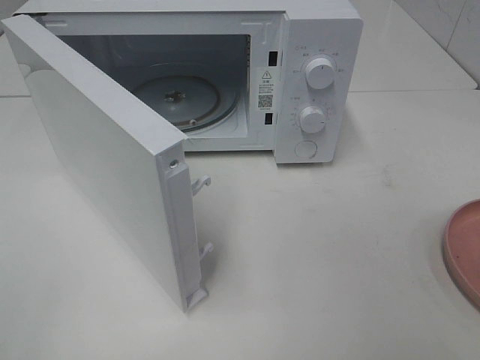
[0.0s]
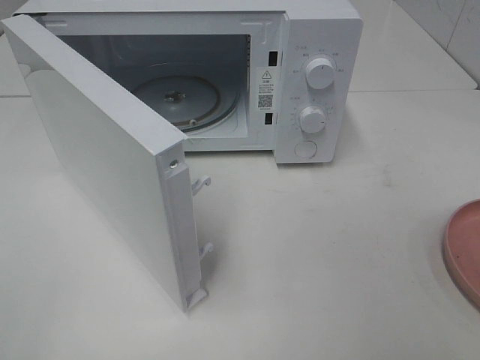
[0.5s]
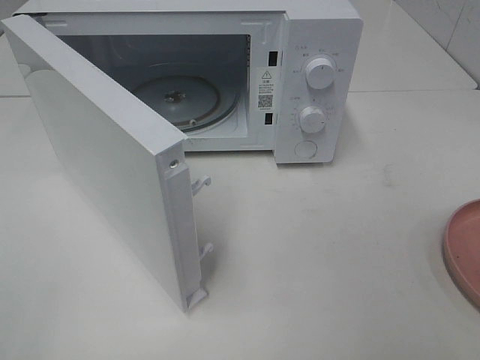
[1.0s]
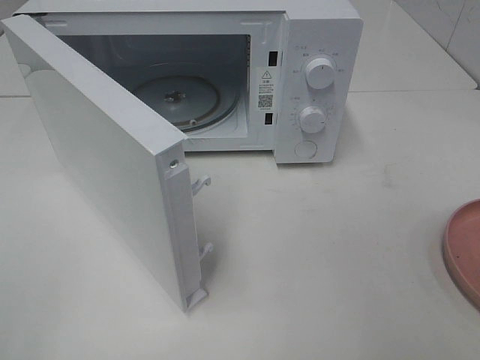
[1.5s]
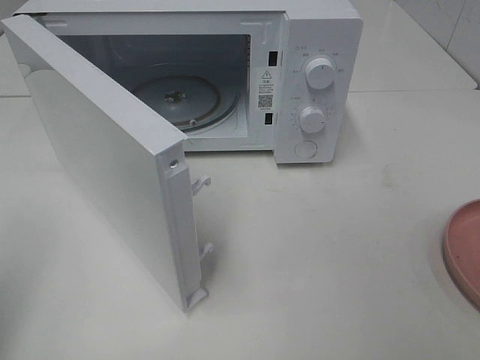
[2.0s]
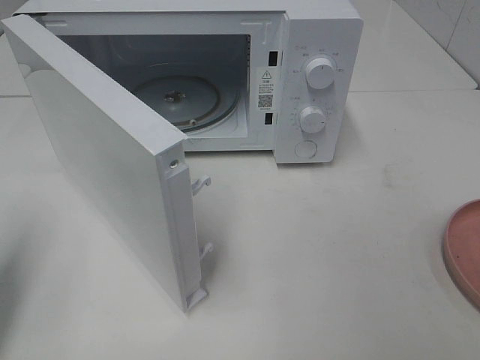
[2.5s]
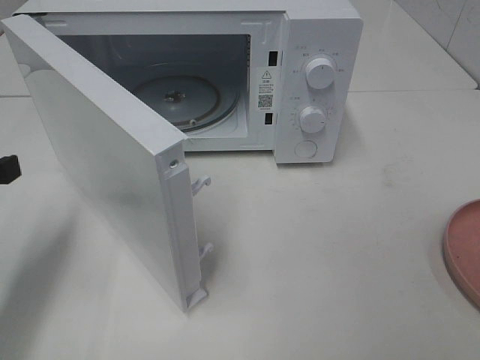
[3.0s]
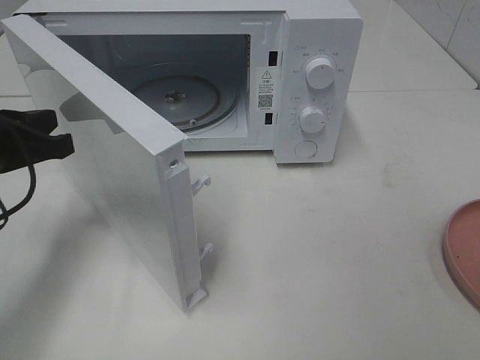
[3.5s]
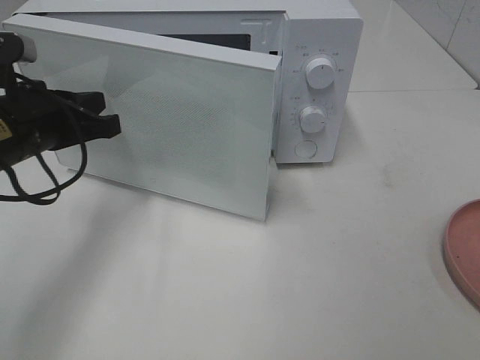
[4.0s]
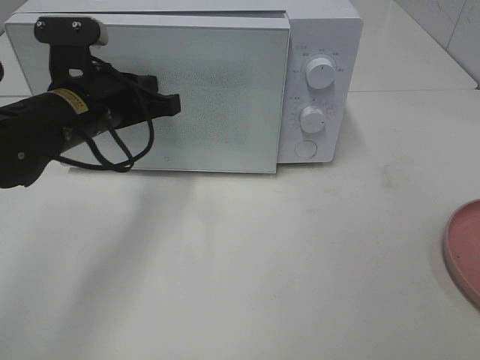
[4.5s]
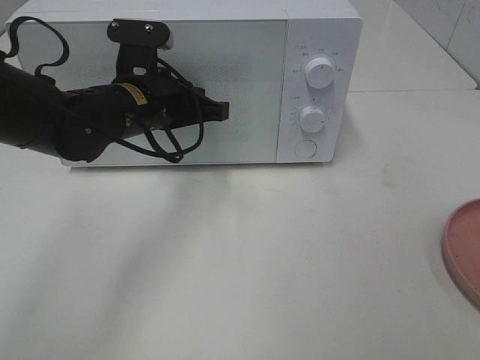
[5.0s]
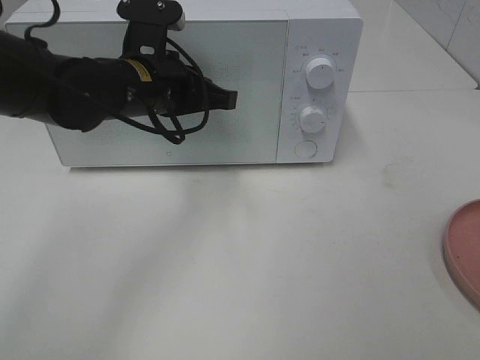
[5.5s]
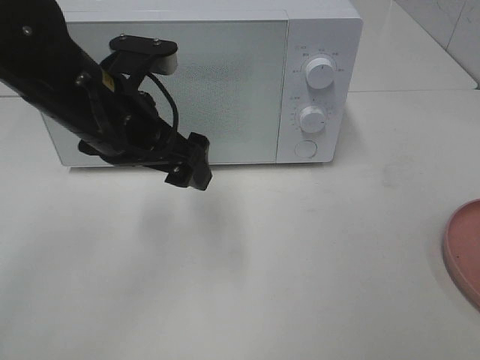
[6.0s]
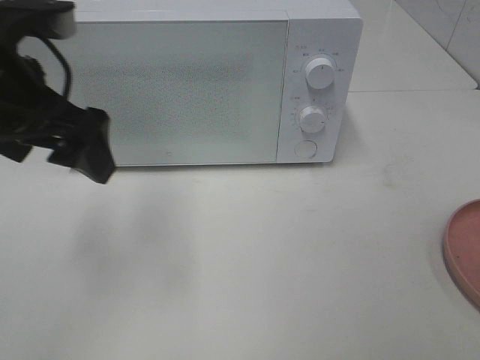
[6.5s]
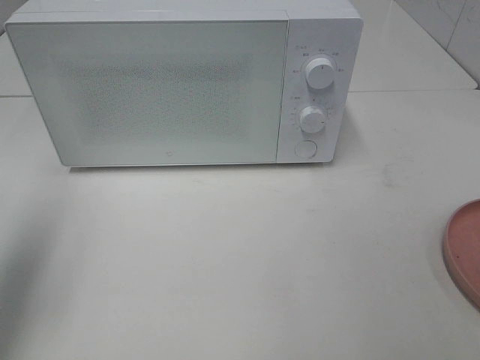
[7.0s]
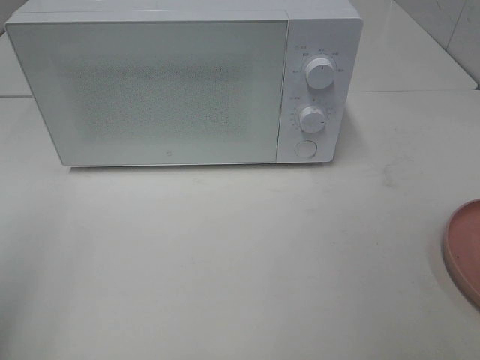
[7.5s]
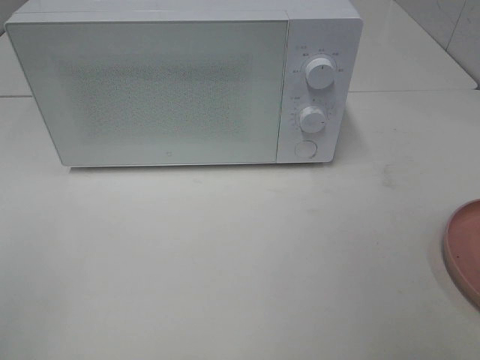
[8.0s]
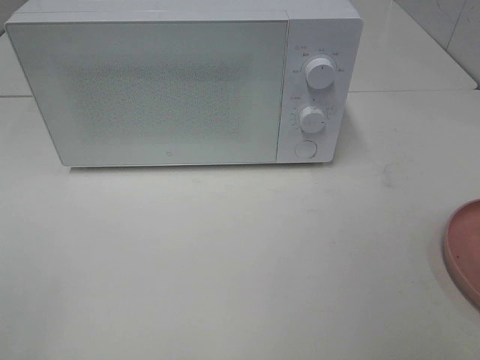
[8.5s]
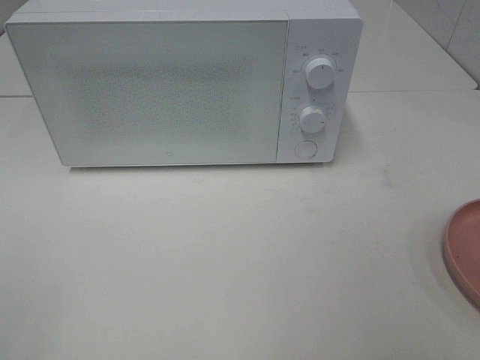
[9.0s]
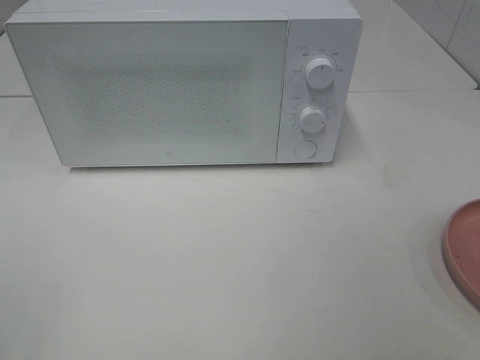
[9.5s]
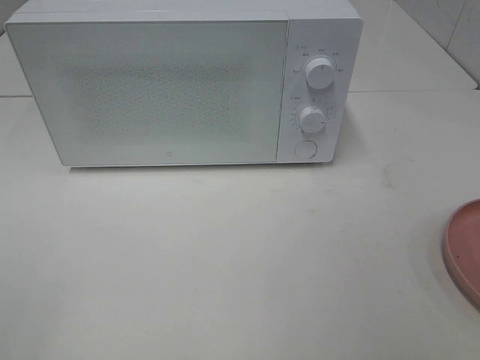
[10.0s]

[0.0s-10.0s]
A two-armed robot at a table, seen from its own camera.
Task of the whole recording: Heat the burger.
Step, 0.0s to 5.5s: Left hand: close the microwave door.
2.0s to 4.0s: The left gripper goes approximately 25 cm forward, downward and to the right.
4.0s to 6.0s: The left gripper shifts about 10 cm to the right, and opens its fingers.
6.0s to 8.0s: The left gripper goes some 35 cm backward and to the left.

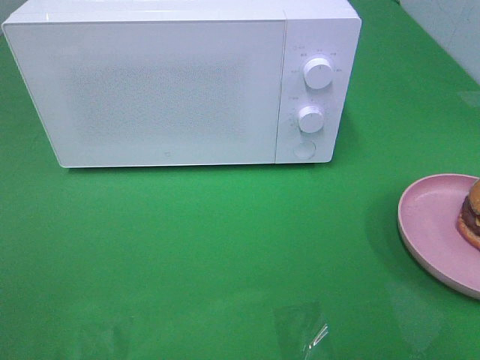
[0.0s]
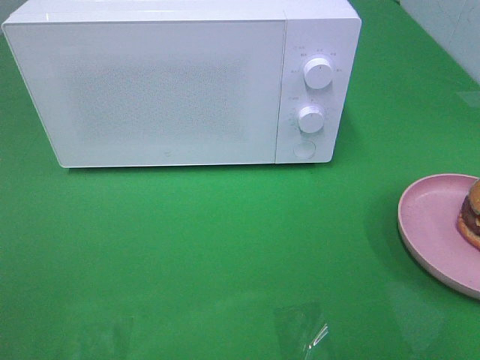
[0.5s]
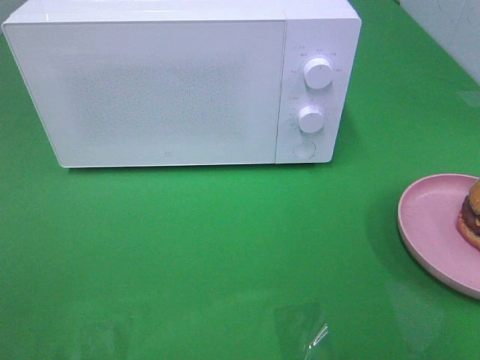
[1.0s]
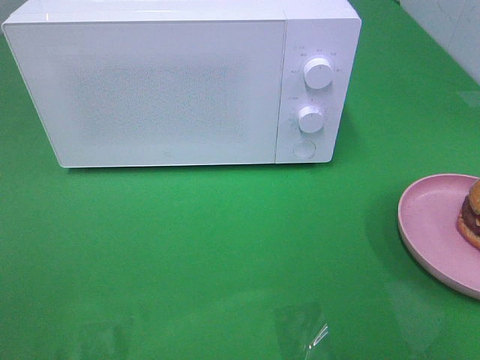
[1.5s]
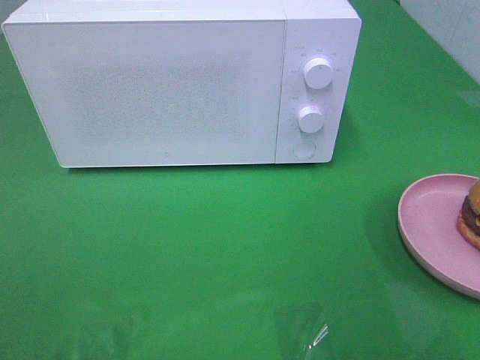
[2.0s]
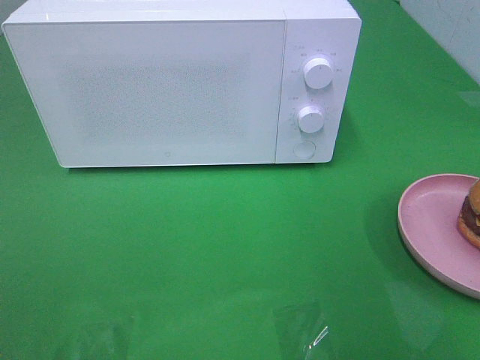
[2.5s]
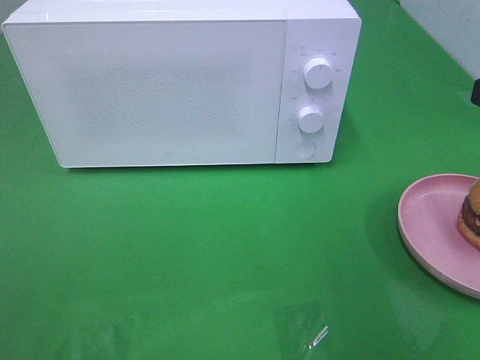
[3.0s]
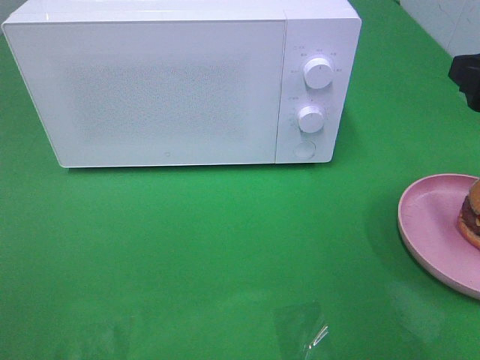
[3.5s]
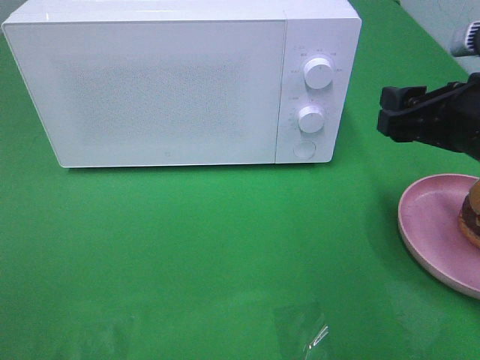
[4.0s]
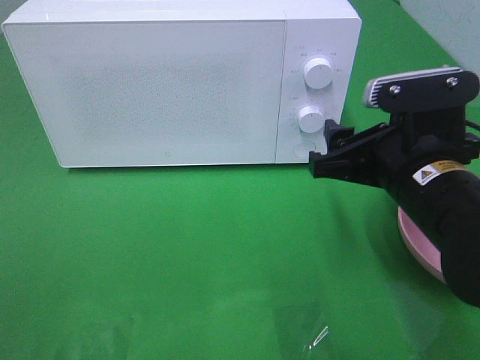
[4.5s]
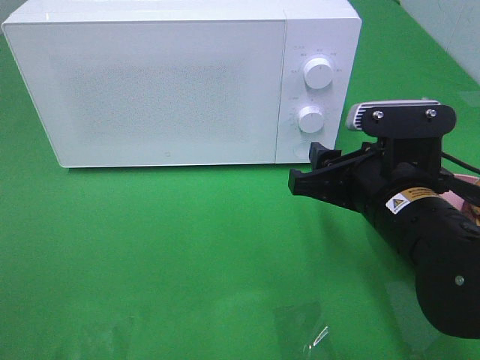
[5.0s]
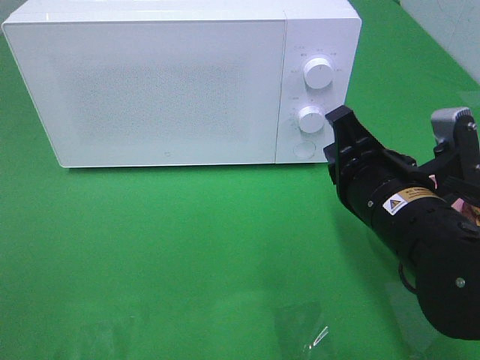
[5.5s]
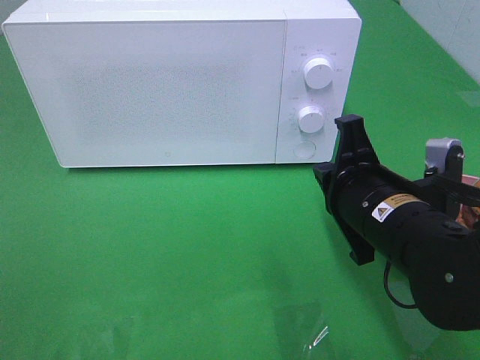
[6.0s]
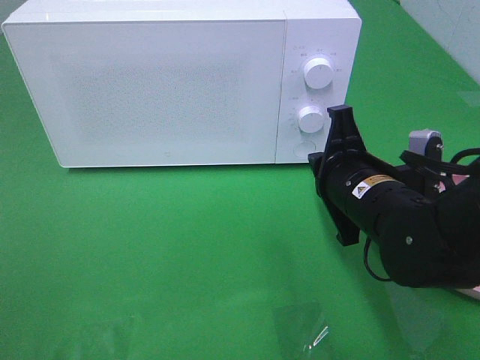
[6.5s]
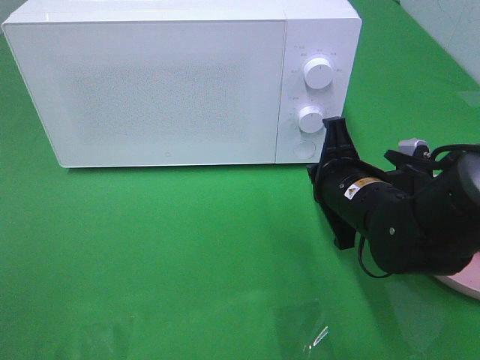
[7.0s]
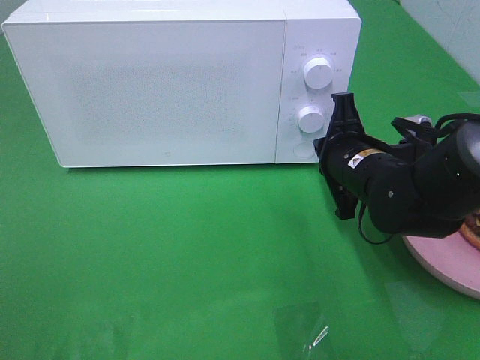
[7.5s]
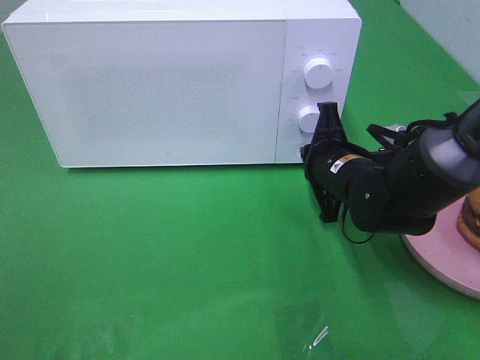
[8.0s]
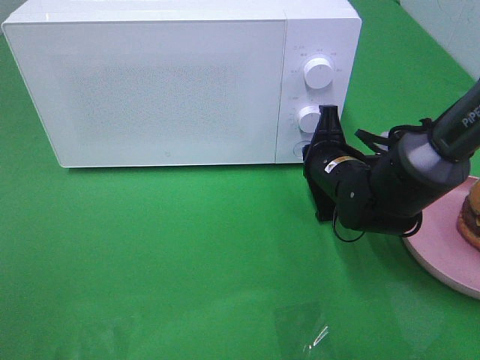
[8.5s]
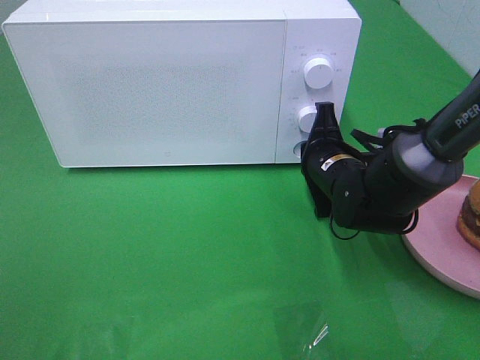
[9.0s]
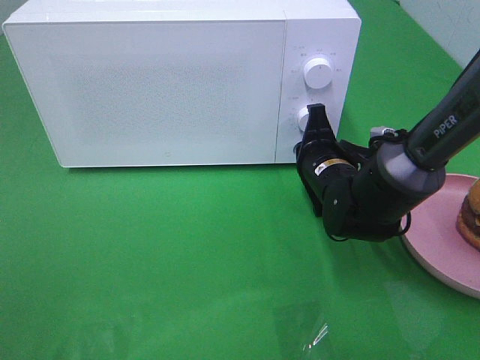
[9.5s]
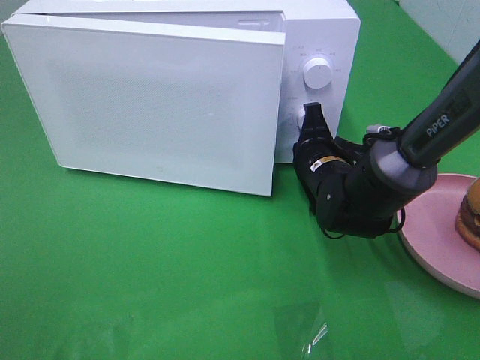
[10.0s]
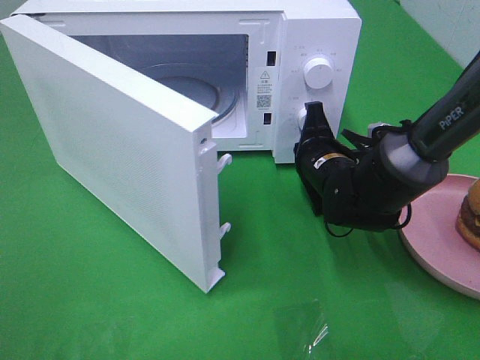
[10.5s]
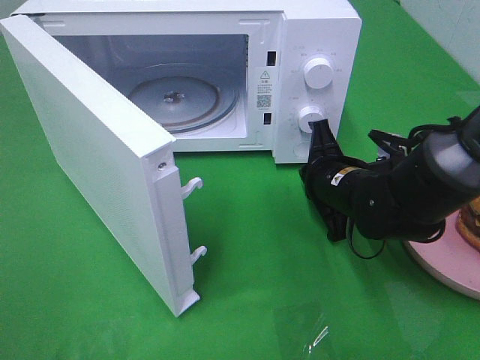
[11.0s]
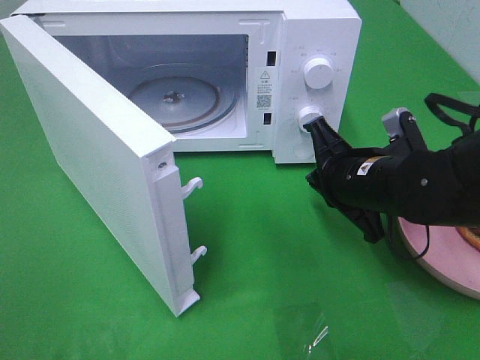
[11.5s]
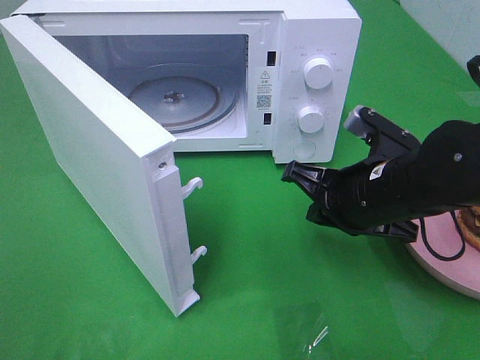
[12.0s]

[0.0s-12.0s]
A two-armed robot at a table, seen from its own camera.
Task of the whole recording: Heat the burger.
Step, 0.0s to 10.5s: Right hand: press the switch.
2.0s to 4.0s: The right gripper travels forward, downward and to the left by roughly 15 cm.
4.0s to 6.0s: The right gripper heads to the left and downward, covering some 10 cm, and closes up.
6.0s to 8.0s: The right gripper travels forward by about 10 cm.
8.0s to 10.0s: The grippers make only small movements.
10.0s to 12.0s: The right gripper heads backward and upward, covering about 10 cm.

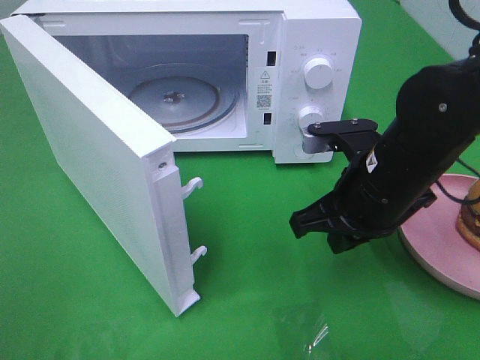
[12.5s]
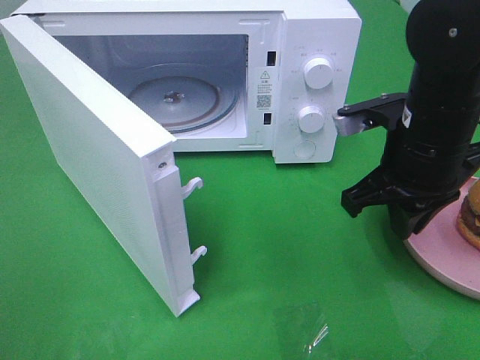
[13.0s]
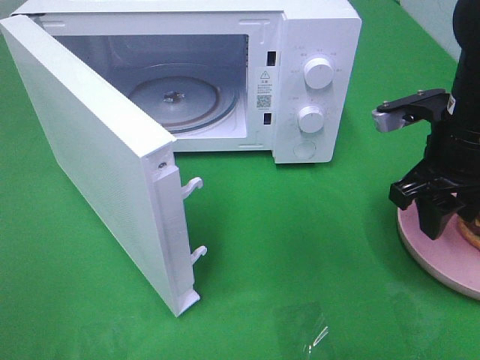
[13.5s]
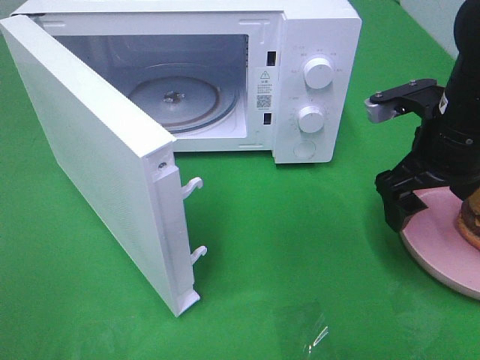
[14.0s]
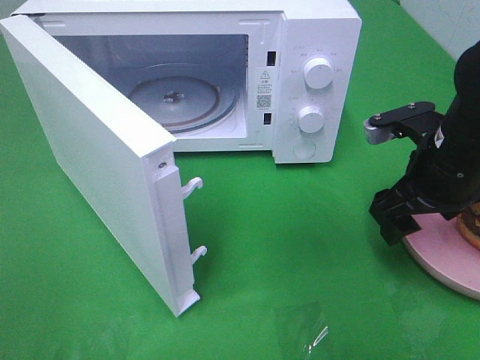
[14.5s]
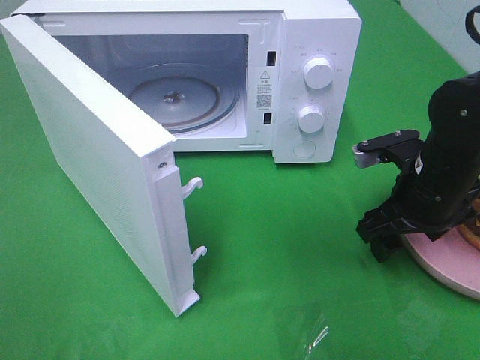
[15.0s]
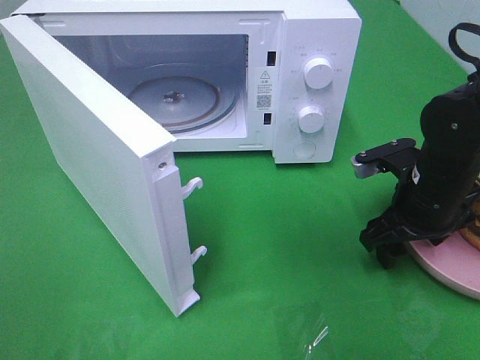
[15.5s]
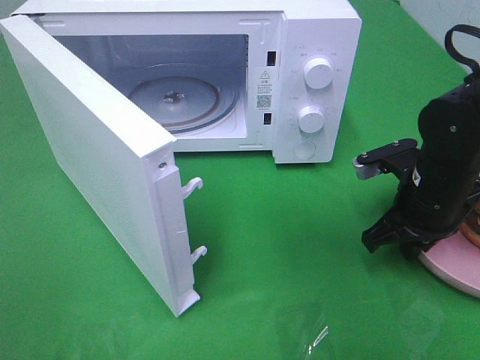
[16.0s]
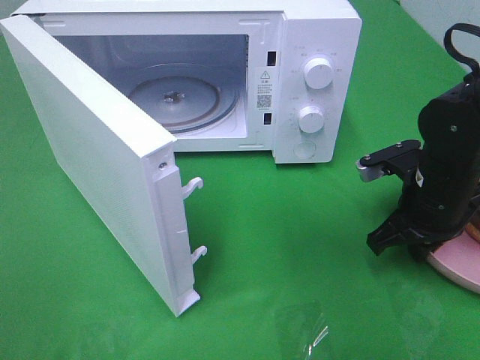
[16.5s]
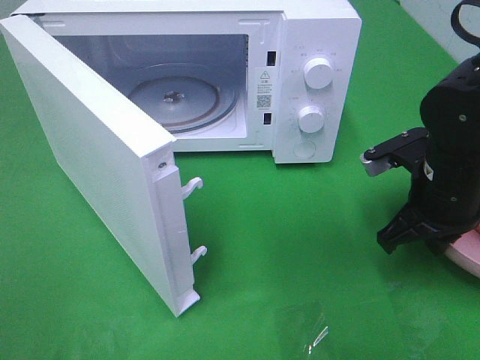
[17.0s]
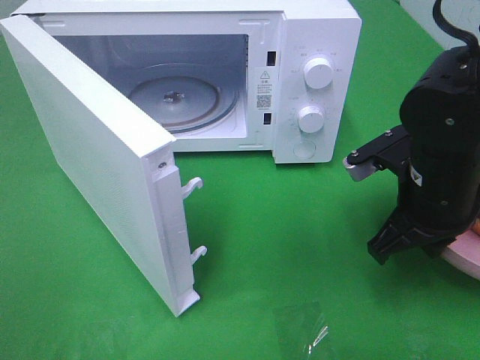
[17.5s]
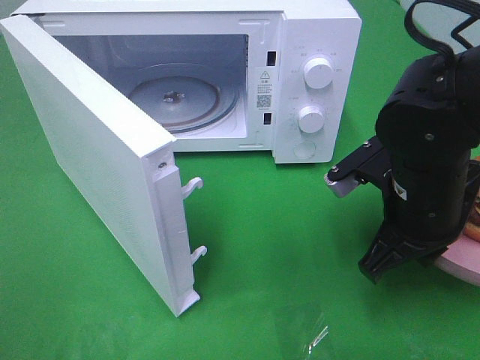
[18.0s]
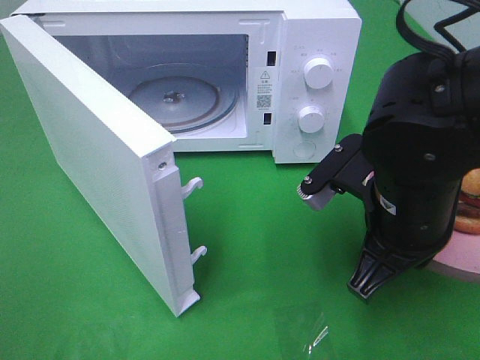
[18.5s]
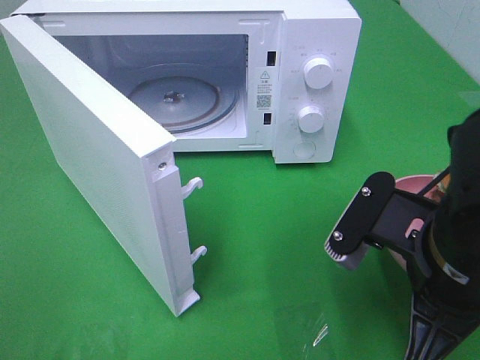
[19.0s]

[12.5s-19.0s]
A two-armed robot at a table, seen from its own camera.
Task of the whole recording: Heat the burger.
Step, 12.5s to 16.0s: Right hand: grab the plate with the hamburger.
12.5s to 14.5s: The right gripper heads to the right, covering about 10 cm, and opens.
14.5s to 17.0s: The right gripper closes.
17.0s to 19.0s: The right gripper heads backward and to the left, covering roughly 15 cm.
